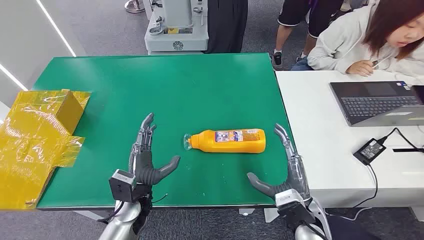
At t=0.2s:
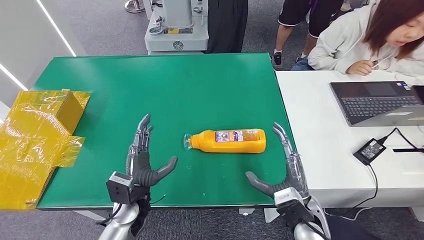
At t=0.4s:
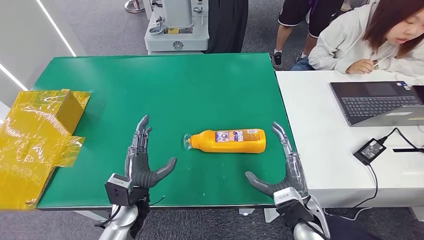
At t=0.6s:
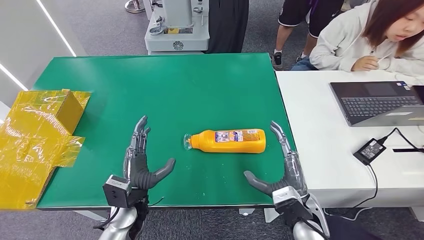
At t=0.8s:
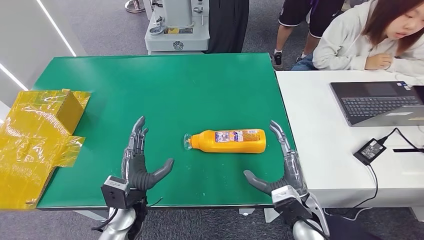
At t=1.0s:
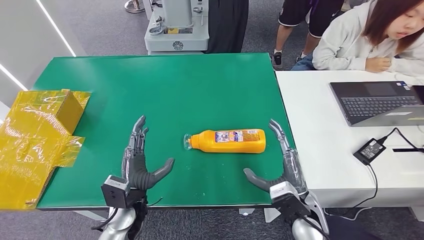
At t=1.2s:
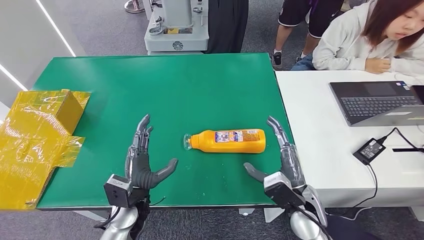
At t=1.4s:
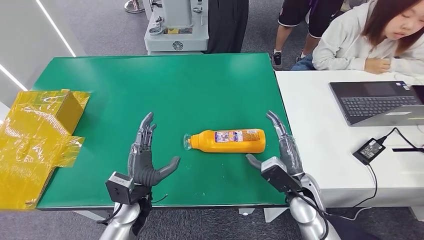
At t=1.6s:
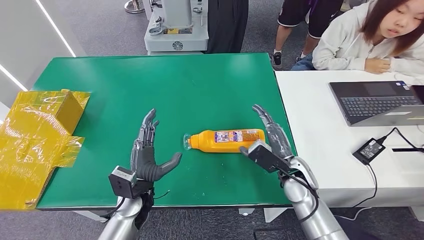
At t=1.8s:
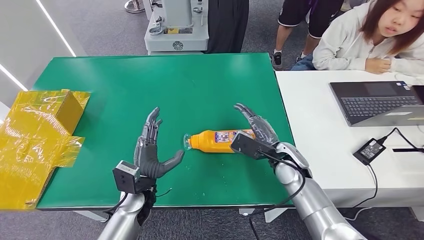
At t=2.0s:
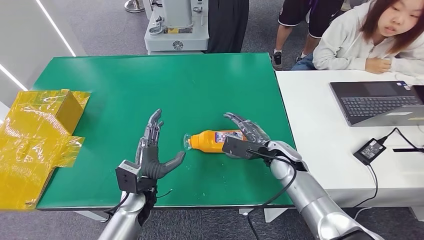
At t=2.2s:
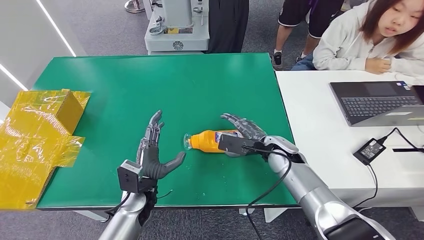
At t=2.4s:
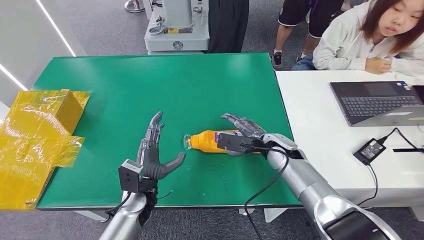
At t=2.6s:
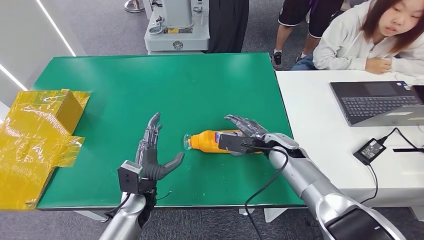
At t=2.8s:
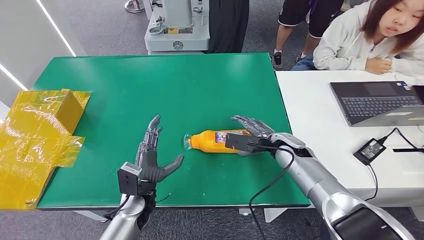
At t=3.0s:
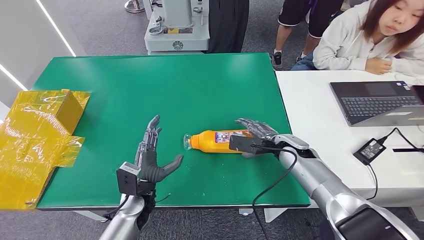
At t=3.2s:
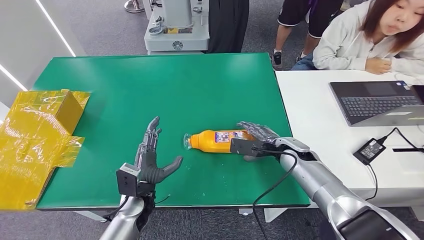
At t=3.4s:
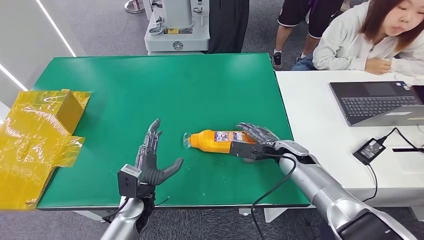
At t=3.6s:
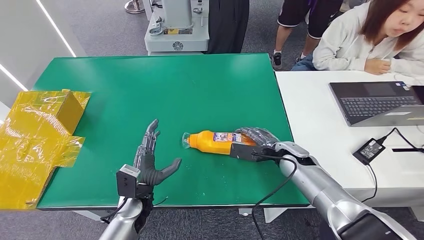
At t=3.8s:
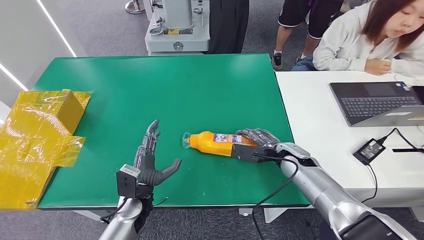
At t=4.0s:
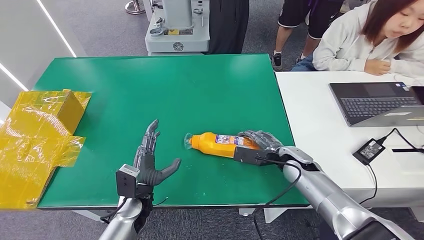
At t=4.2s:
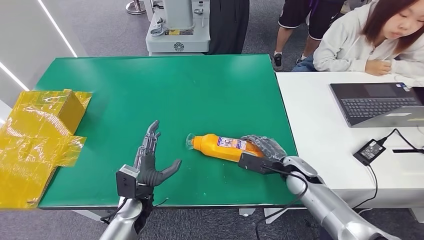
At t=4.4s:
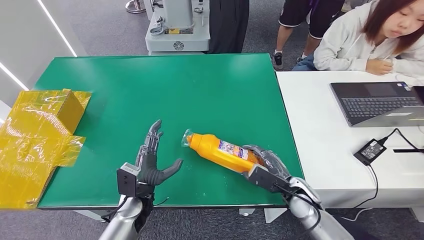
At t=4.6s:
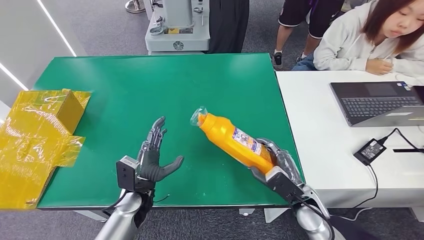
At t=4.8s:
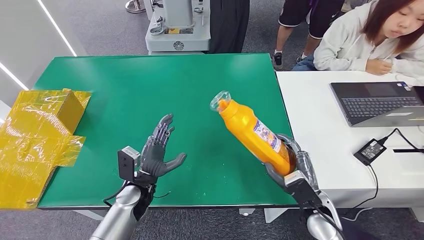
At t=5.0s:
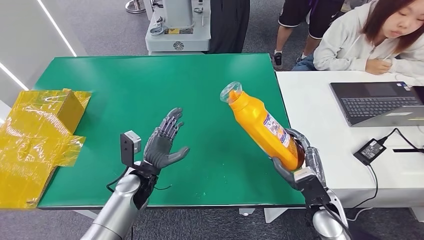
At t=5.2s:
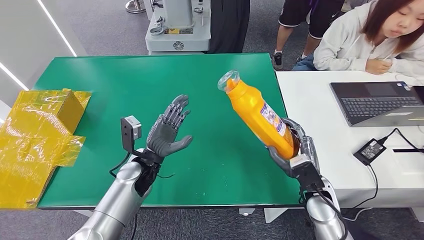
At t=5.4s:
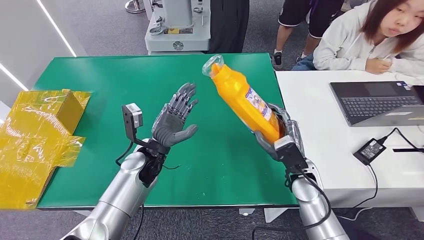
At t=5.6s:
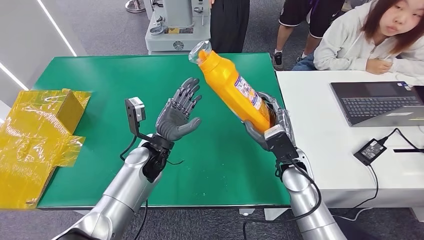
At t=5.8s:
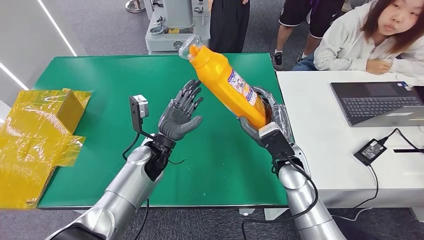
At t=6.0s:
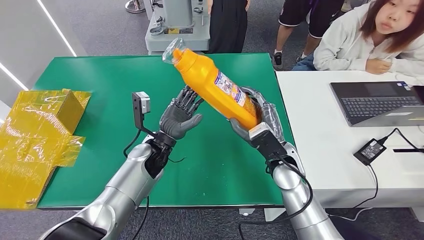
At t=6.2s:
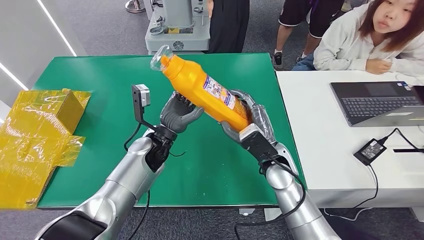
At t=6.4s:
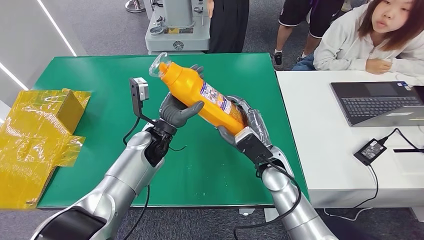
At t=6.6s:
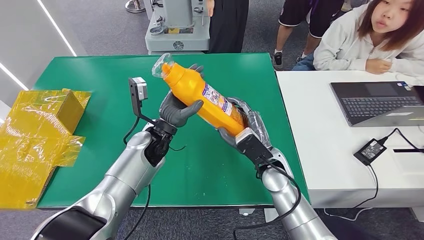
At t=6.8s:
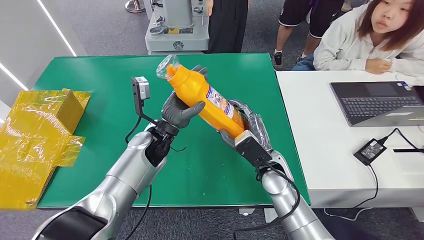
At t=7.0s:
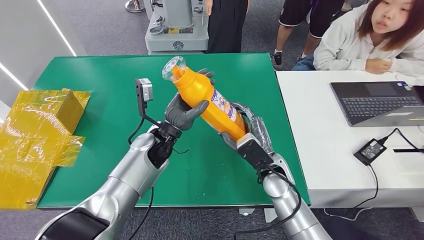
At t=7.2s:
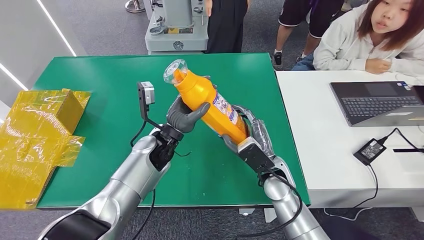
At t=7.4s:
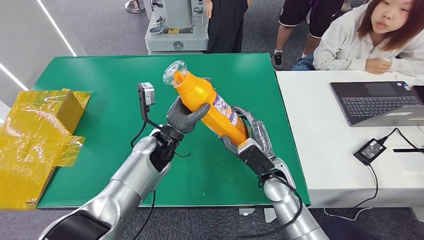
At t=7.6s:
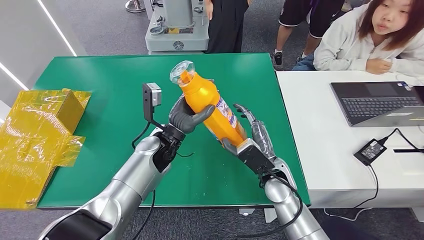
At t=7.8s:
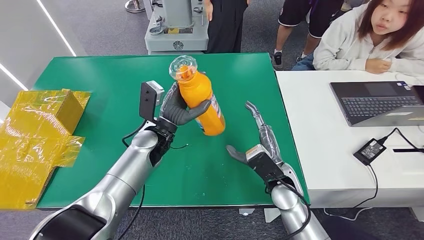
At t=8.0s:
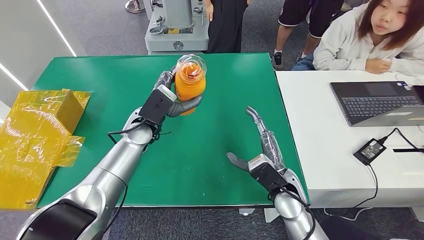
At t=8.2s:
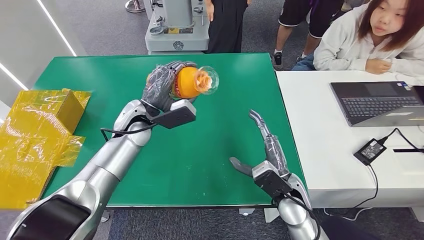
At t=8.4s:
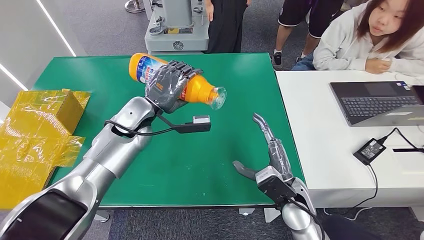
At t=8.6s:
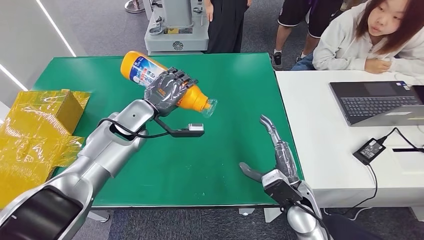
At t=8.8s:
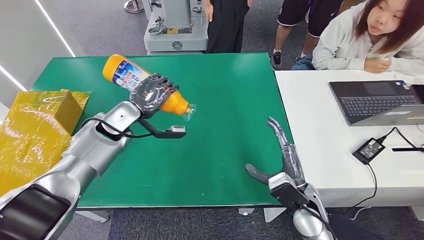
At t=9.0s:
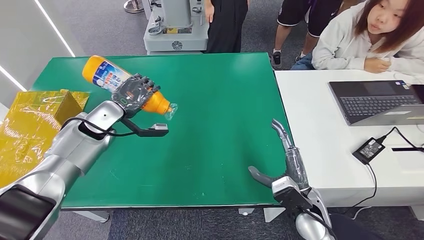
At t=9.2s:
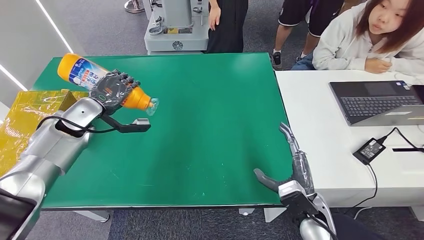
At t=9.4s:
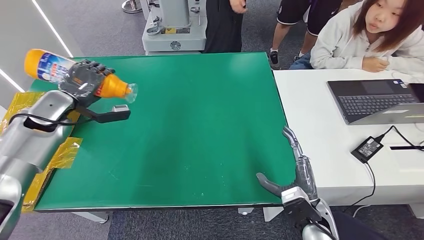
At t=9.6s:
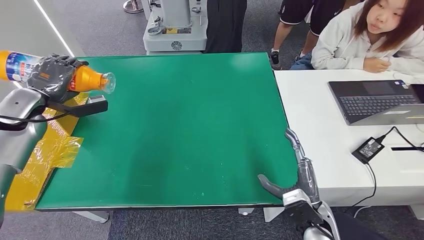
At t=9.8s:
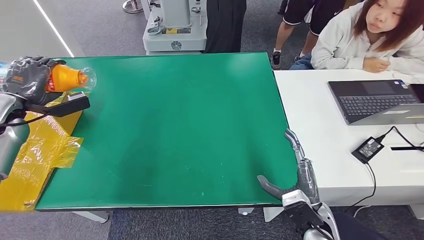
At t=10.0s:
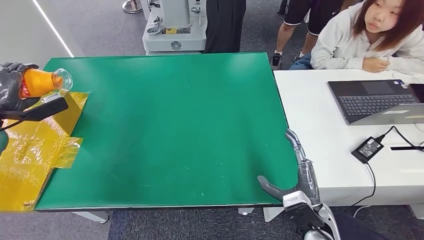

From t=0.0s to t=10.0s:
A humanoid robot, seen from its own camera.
Step, from t=0.0s to t=5.2s: Pick up the bottle from the table.
From t=1.4s to t=2.8s: The right hand travels forward by roughly 15 cm.
From t=2.8s to t=4.2s: The right hand goes about 10 cm downward and backward.
From t=5.8s to t=7.2s: The hands stay close to where they were, moving slightly.

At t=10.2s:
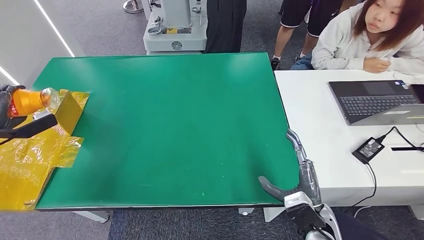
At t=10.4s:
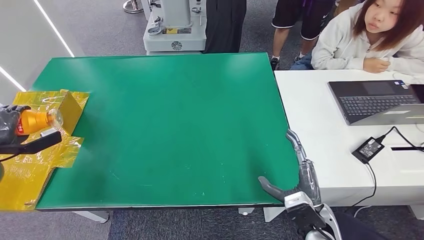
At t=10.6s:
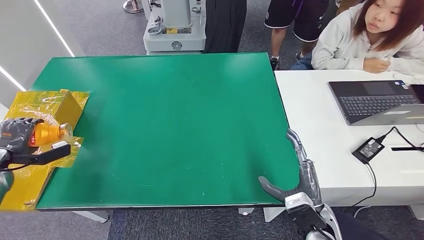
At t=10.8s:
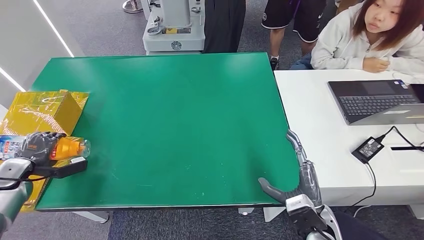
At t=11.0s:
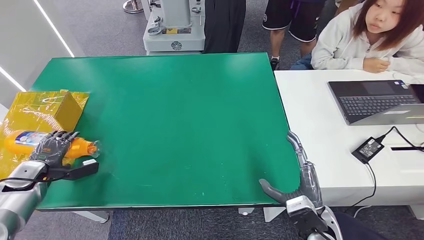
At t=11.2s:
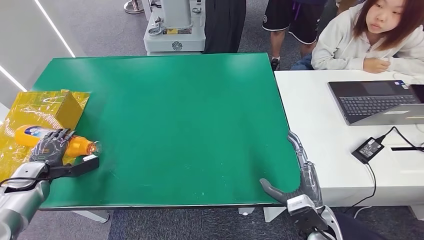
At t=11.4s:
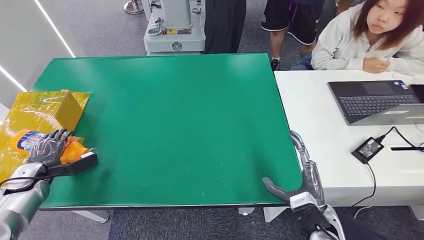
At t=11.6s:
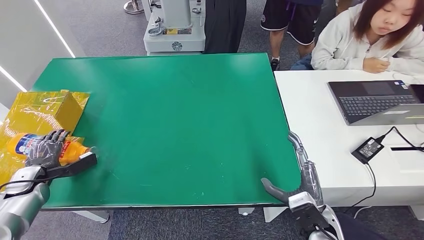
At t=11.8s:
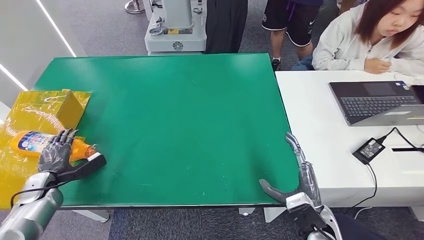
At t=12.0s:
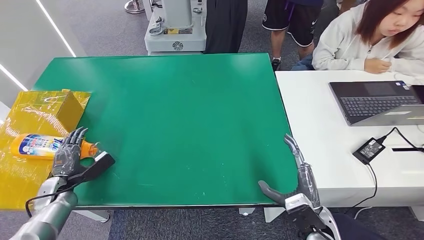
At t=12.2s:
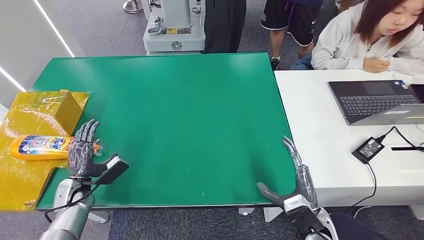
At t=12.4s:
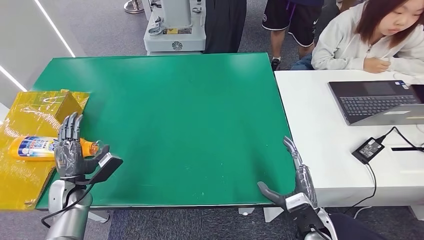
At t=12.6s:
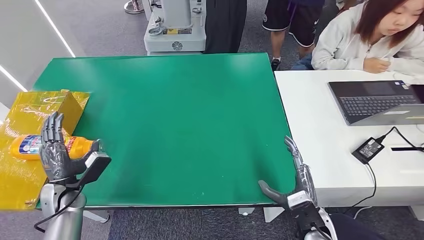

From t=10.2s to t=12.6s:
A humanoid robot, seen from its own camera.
Step, from t=10.2s to t=12.4s: Turn the bottle to the front side.
From t=10.2s to t=11.4s: The left hand goes some 15 cm downward and to the right.
From t=11.4s to t=12.6s: The left hand moves to the right, roughly 15 cm.
